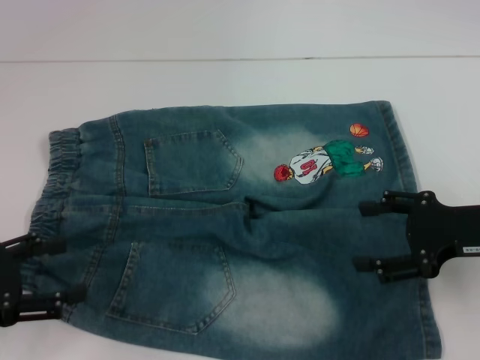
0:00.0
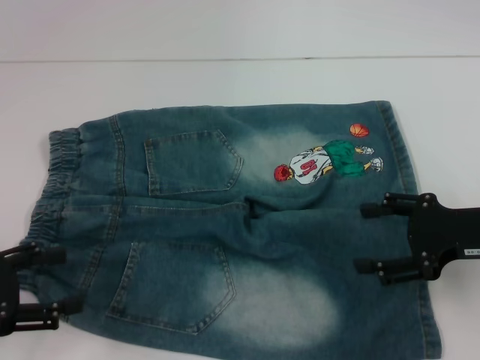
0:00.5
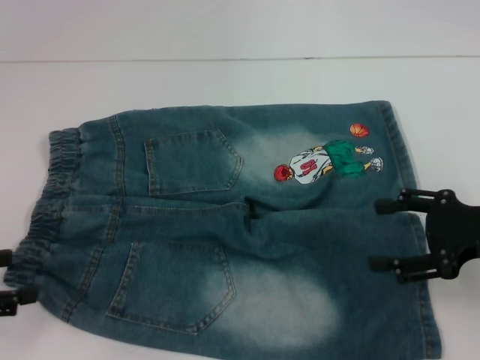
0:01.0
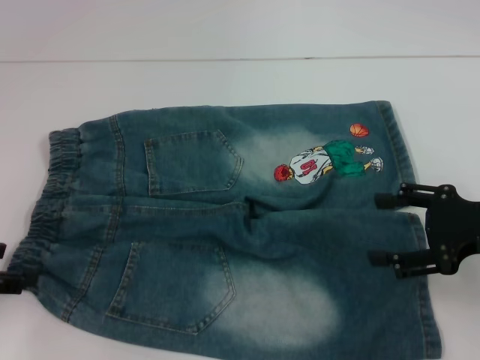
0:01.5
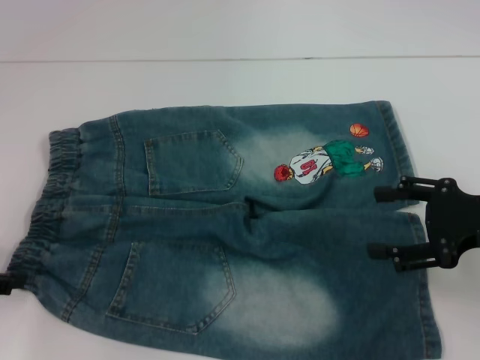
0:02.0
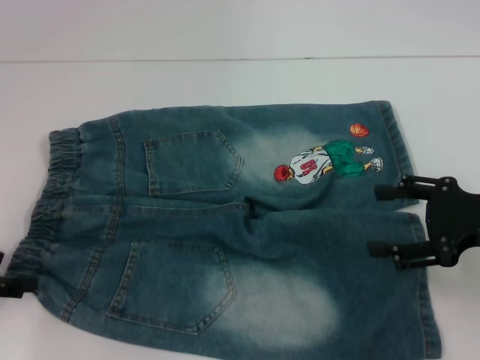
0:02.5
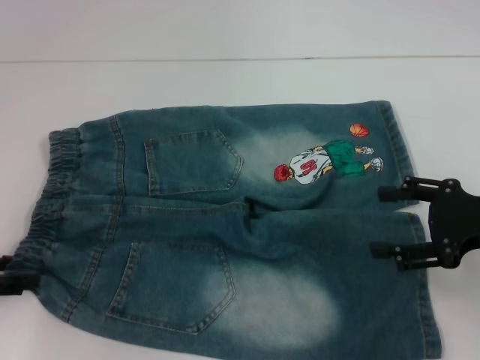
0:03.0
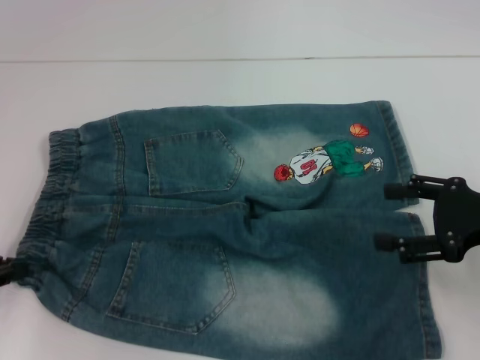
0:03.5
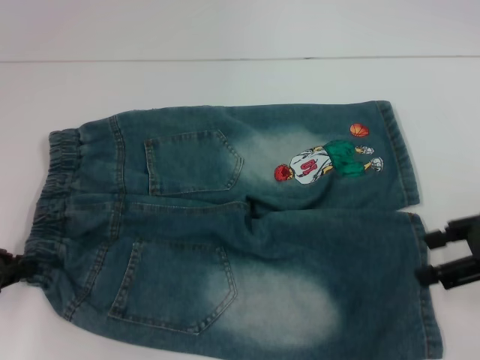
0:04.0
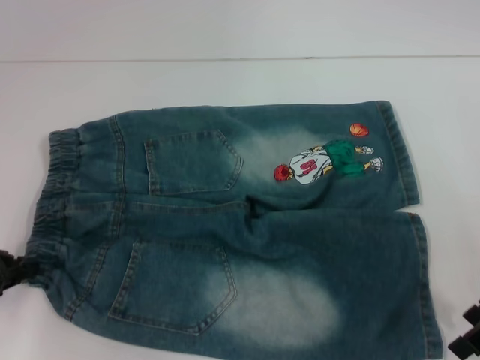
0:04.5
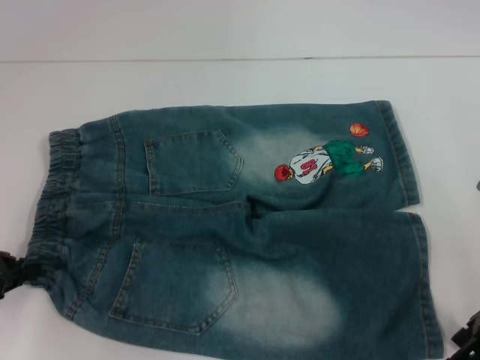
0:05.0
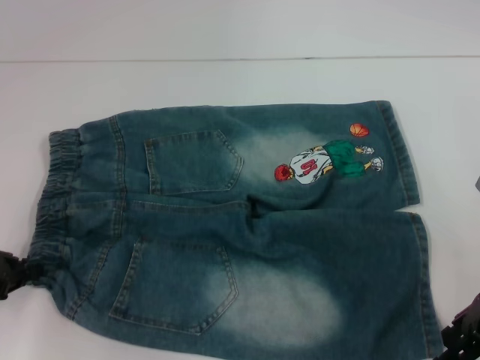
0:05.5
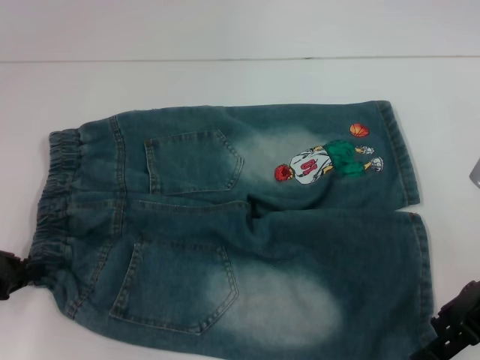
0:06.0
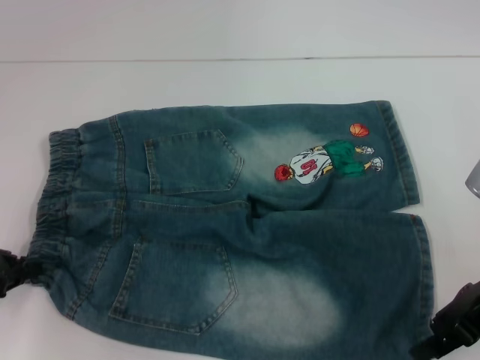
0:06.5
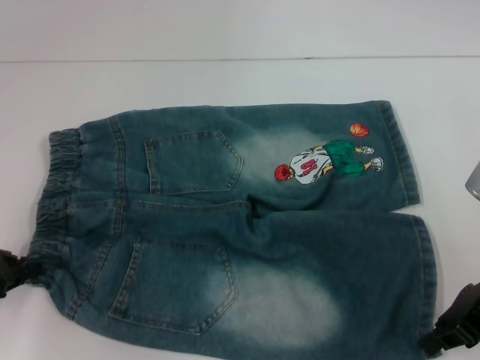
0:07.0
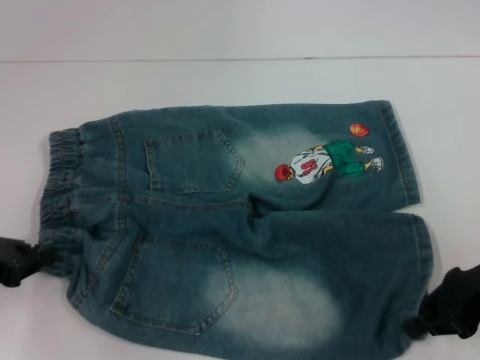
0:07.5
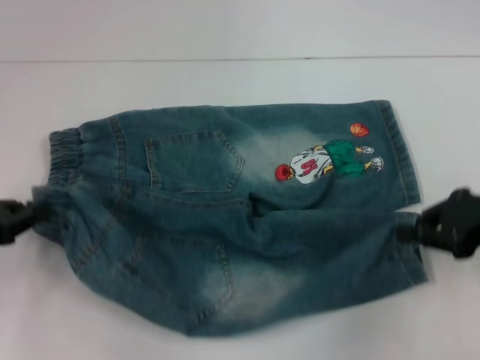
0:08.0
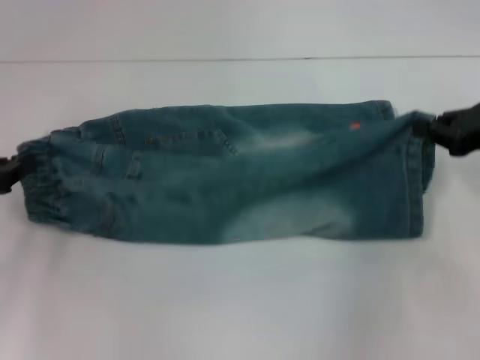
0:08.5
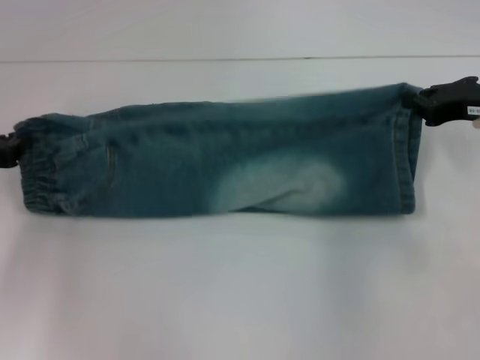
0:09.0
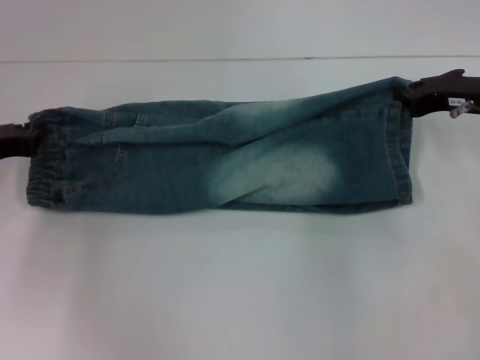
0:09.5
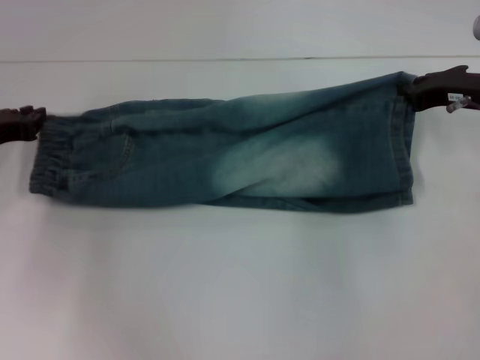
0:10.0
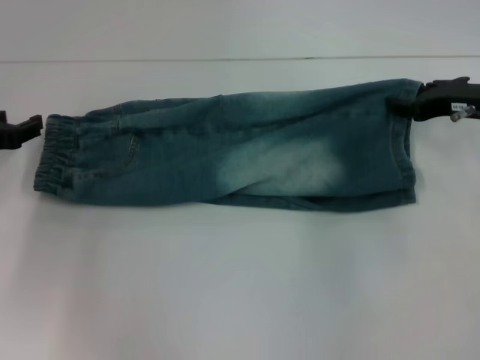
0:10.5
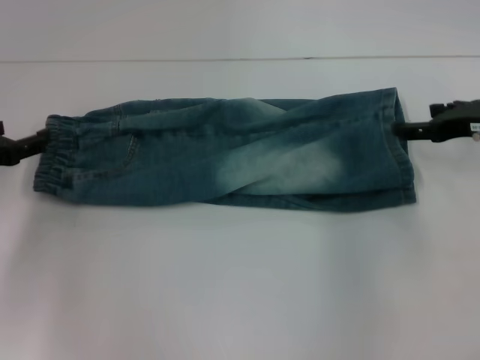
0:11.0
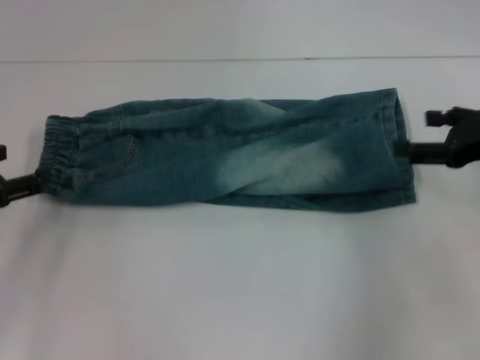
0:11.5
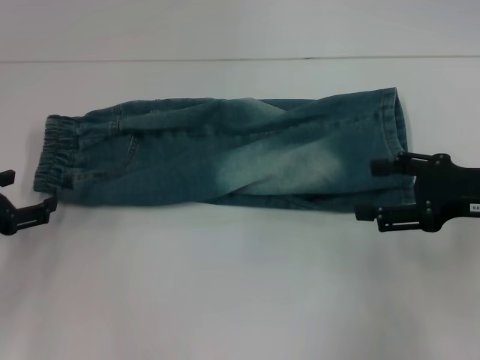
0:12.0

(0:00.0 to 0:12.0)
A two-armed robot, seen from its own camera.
Step, 0:00.0 - 0:03.5: Hold the lower left waistband with your left hand.
Step, 0:04.0 - 0:07.0: Grab the lower right pant leg with your right hand.
Step, 0:07.5 - 0:10.5: Fold upward with your right hand.
0:02.0 - 0:04.0: The left gripper closes up.
0:04.0 - 0:06.0: The right gripper changes place by roughly 5 cm.
0:06.0 - 0:08.0: The right gripper closes up.
0:08.0 - 0:10.0: The grippers both shift forward by roughly 10 cm.
0:10.0 - 0:12.0: Both grippers travel together backward, approximately 10 cm. The right gripper opens up. The left gripper opens up.

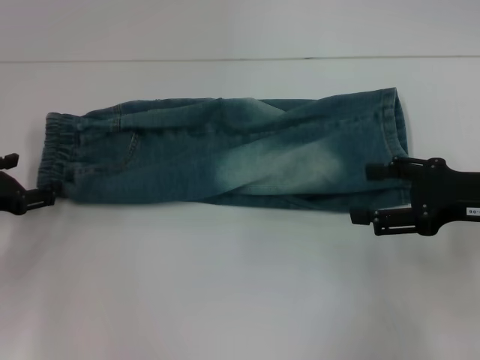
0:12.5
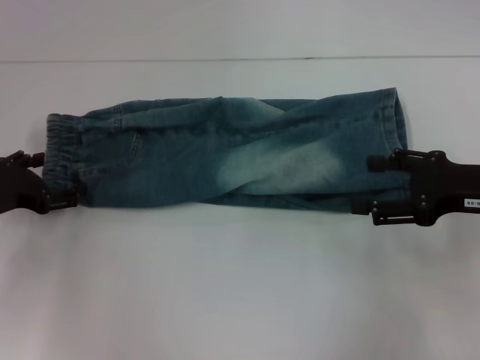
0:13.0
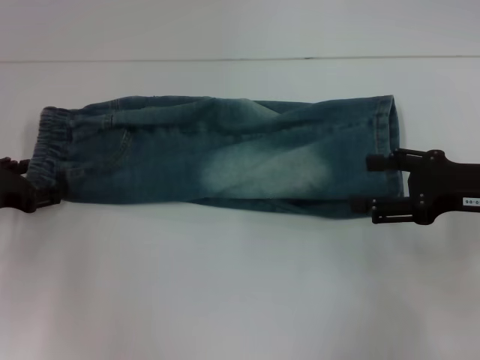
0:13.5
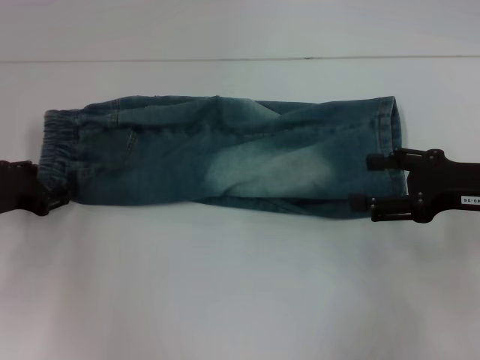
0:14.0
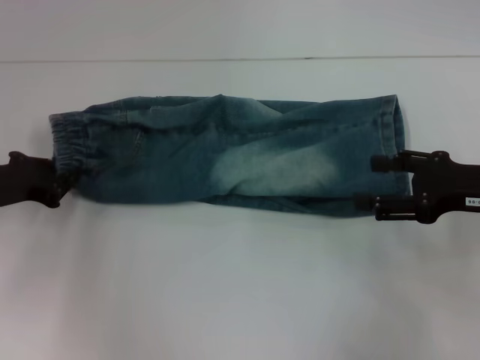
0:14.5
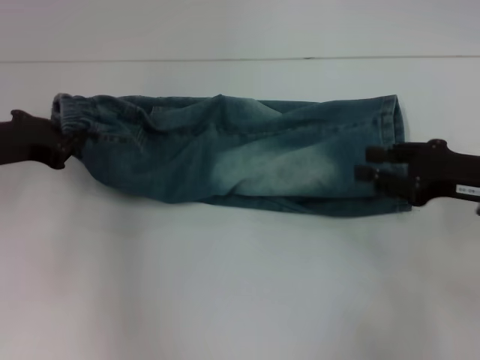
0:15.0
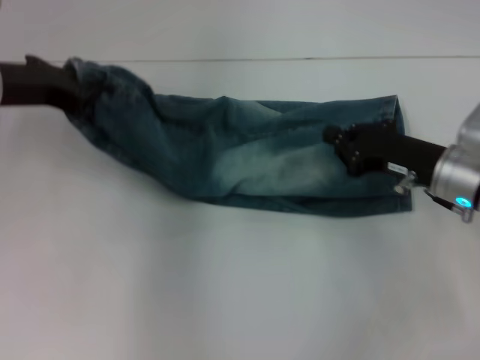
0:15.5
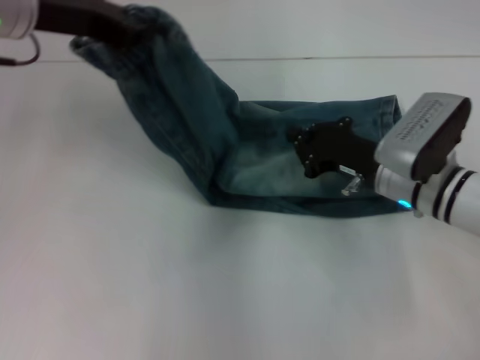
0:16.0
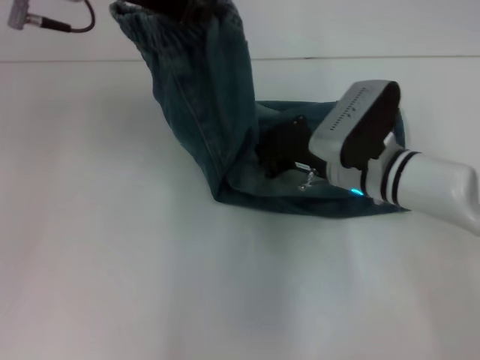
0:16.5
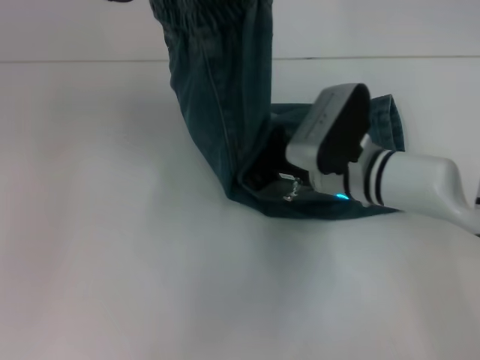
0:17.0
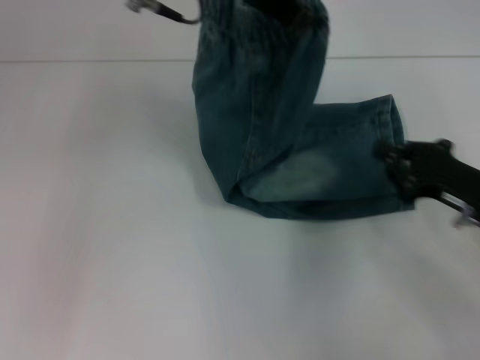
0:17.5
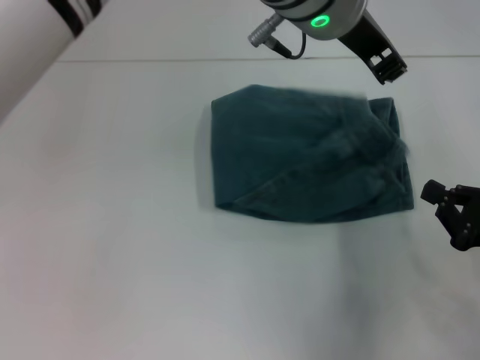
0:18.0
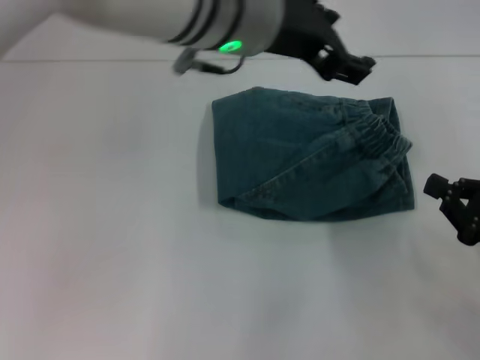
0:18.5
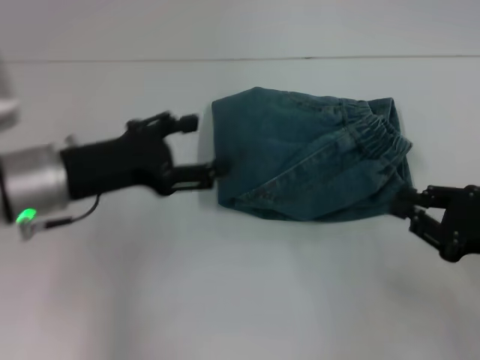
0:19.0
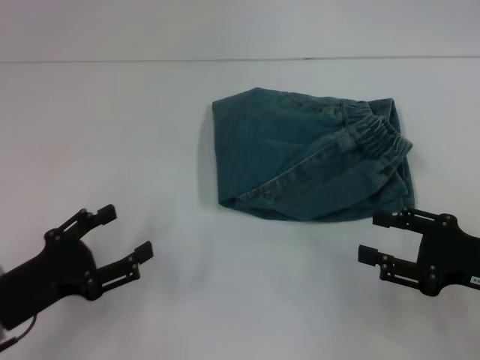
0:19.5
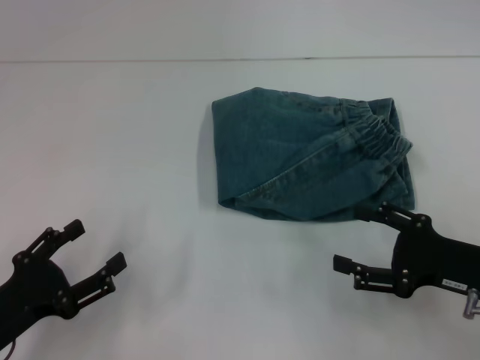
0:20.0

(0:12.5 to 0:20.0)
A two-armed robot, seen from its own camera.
Step, 0:12.5 - 0:14.5: Hold the waistband with your left hand.
Step, 0:15.0 - 0:17.0: Press the middle of the pants with your right hand.
Step, 0:17.5 - 0:18.5: Fold to the right with your left hand.
0:12.5 - 0:14.5: The left gripper closes up.
0:14.5 - 0:16.5: The left gripper travels upward and to the right by about 25 cm, while the right gripper travels to the left, forward and downward by some 20 cm, and closes.
0:16.5 - 0:18.0: The left gripper shifts some 20 cm to the right, while the right gripper goes approximately 25 cm to the right and backward.
0:18.0 - 0:20.0: The right gripper opens. Meanwhile the left gripper is displaced to the left, downward and backward by approximately 50 cm, and opens its fingers.
